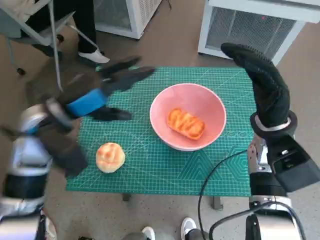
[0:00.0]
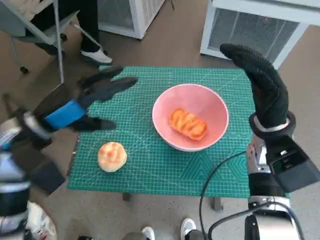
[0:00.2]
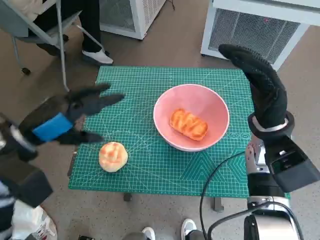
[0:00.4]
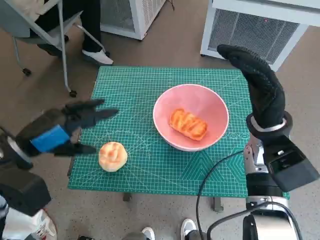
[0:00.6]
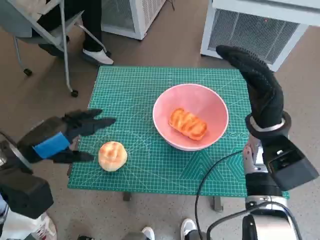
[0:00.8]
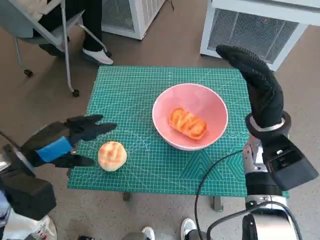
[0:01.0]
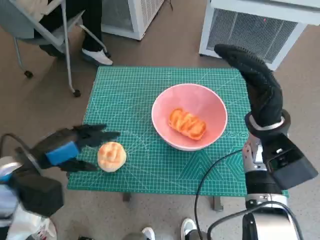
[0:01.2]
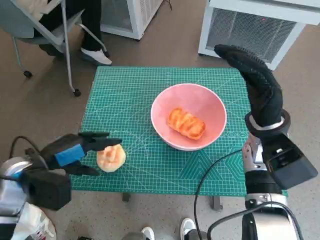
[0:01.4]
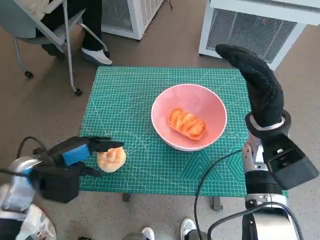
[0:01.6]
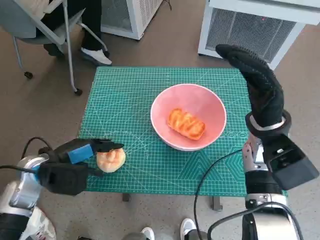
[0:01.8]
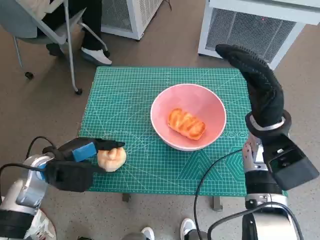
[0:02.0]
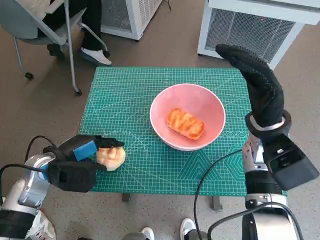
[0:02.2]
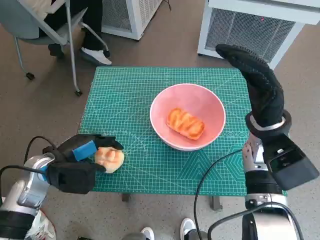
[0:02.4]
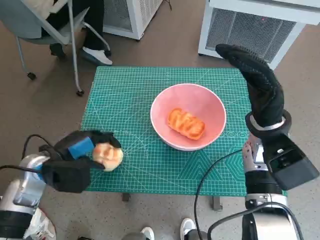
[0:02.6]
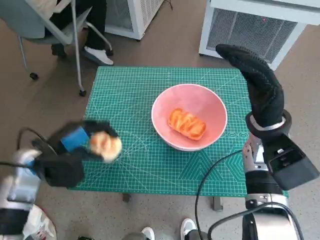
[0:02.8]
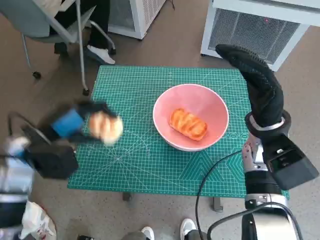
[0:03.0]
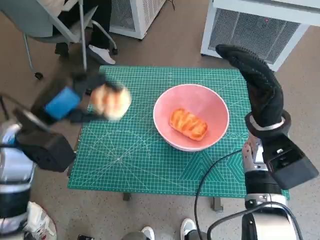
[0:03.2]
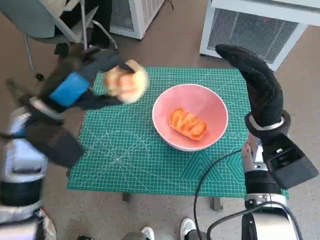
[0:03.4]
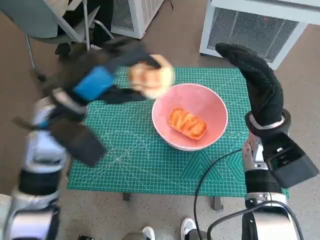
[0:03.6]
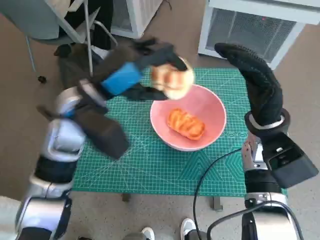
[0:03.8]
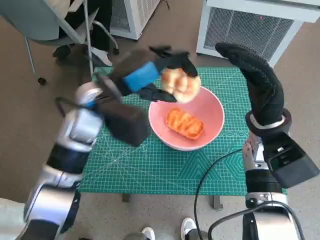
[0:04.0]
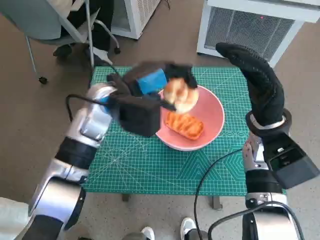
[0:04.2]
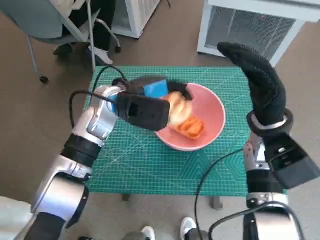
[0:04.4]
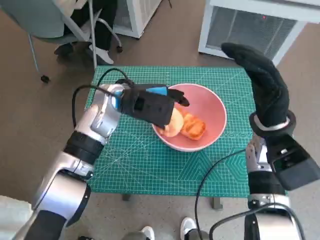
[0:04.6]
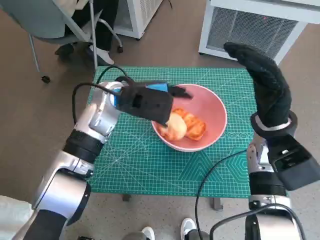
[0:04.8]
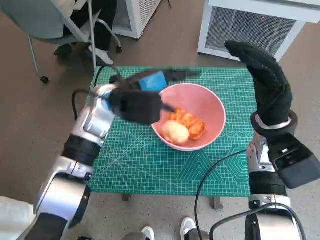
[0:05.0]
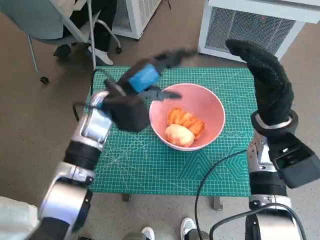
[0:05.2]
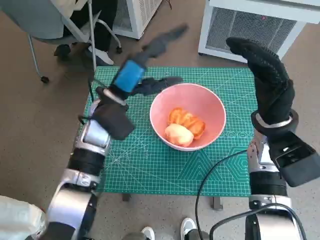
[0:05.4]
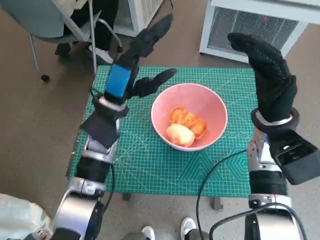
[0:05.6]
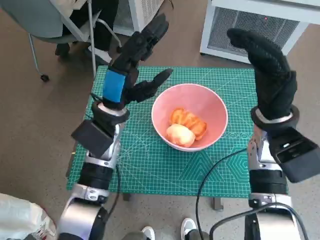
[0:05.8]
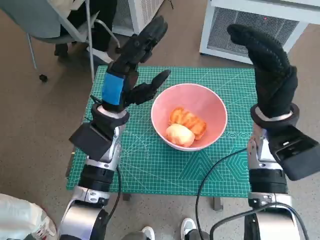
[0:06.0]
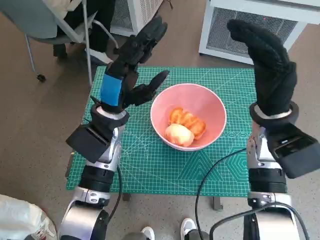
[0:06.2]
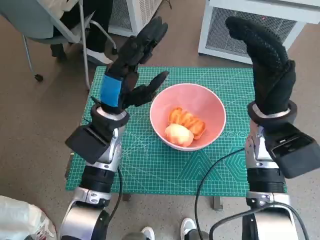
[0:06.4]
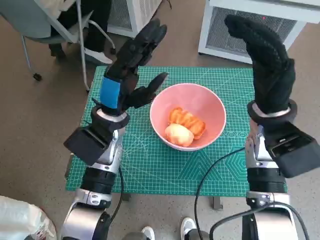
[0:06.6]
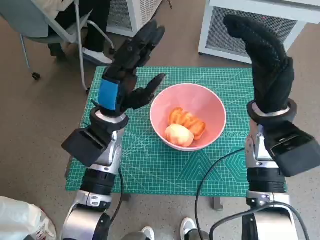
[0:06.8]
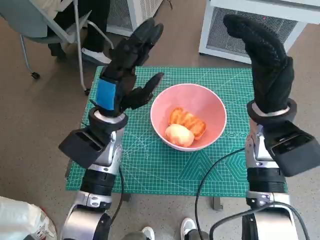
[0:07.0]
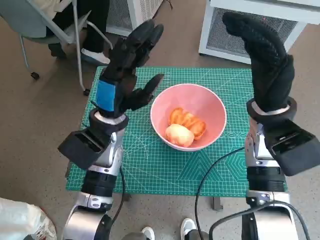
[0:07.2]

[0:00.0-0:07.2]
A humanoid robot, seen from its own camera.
Task of the whole recording: Push the bowl to the center of the table and put the bread into the bowl.
Step, 0:00.0 to 0:02.2: Grasp the round bread with left hand.
Step, 0:02.4 to 0:04.8: Place the round bread in pink bowl with left hand.
0:00.0 to 0:01.4: The left hand shifts roughly 10 cm downward, to the left and backward.
0:01.4 to 0:02.8: There are only small adjustments of the hands.
0:02.8 to 0:04.4: The left hand shifts roughly 20 cm to the right, forward and upward.

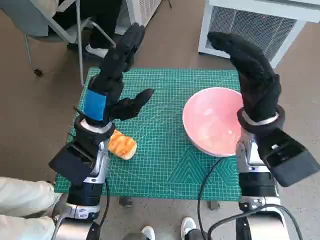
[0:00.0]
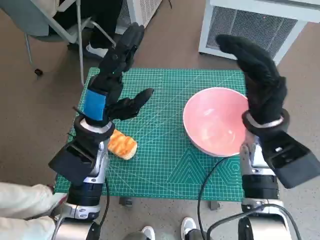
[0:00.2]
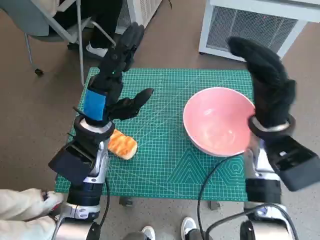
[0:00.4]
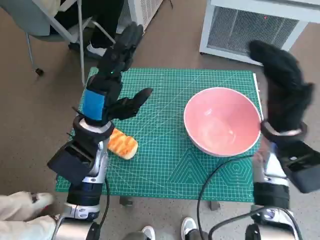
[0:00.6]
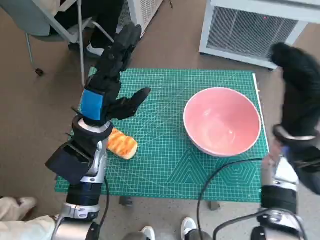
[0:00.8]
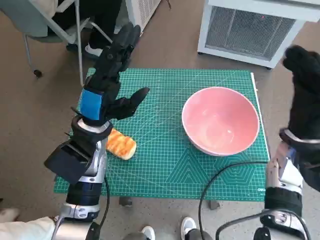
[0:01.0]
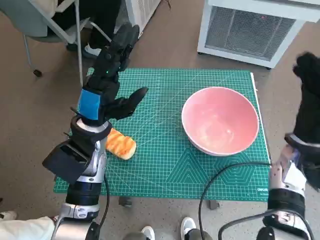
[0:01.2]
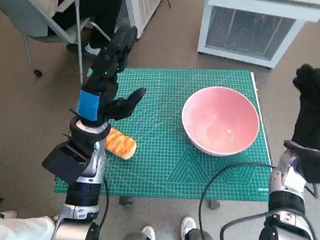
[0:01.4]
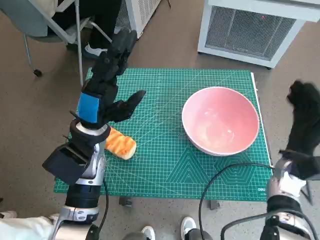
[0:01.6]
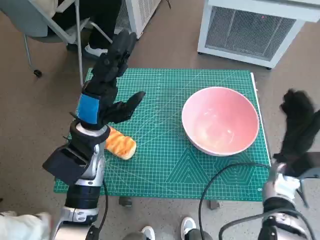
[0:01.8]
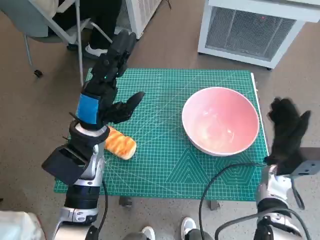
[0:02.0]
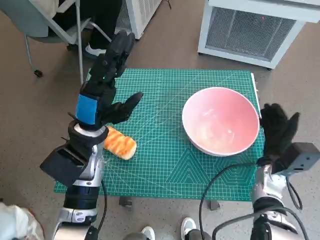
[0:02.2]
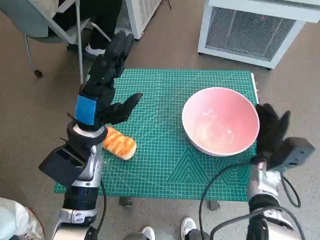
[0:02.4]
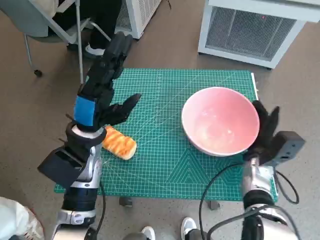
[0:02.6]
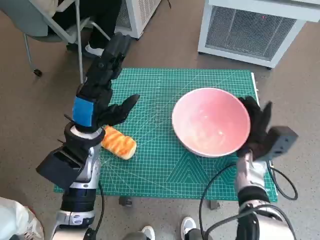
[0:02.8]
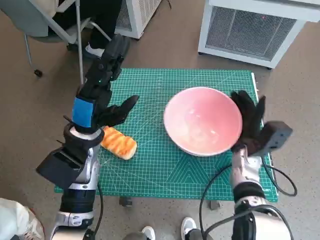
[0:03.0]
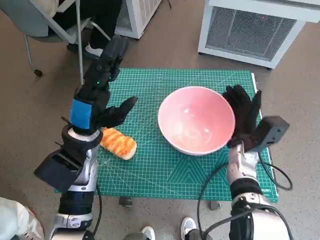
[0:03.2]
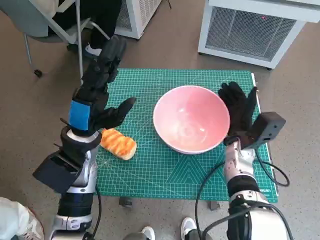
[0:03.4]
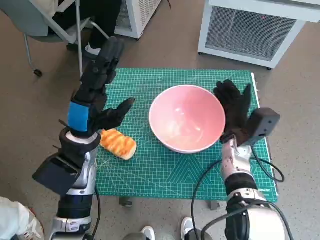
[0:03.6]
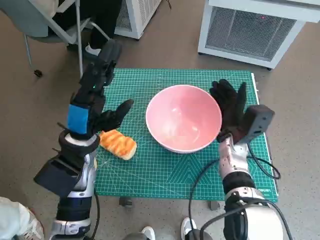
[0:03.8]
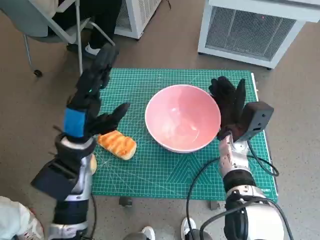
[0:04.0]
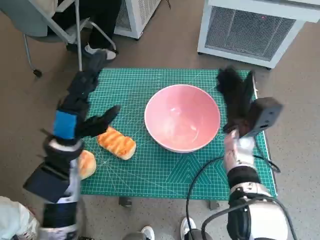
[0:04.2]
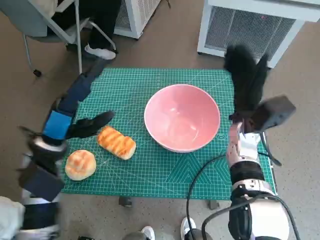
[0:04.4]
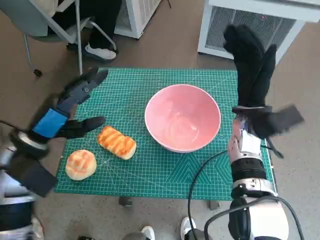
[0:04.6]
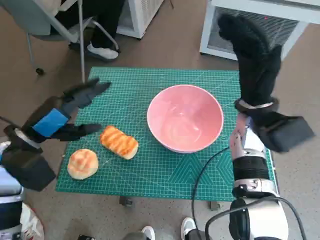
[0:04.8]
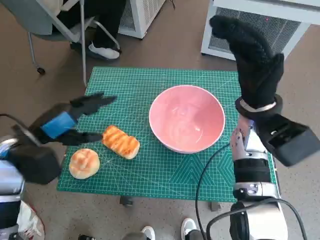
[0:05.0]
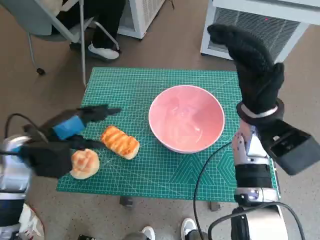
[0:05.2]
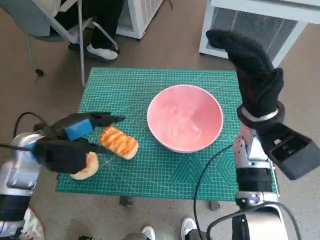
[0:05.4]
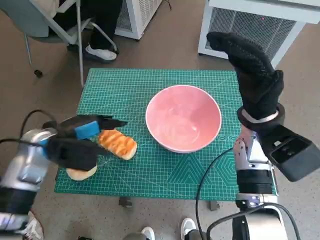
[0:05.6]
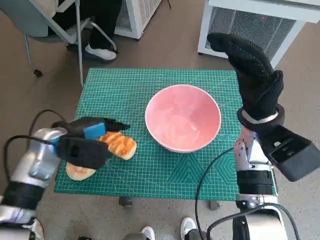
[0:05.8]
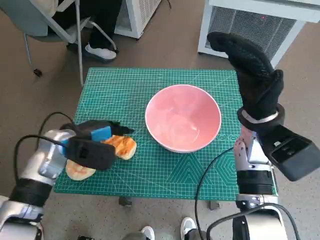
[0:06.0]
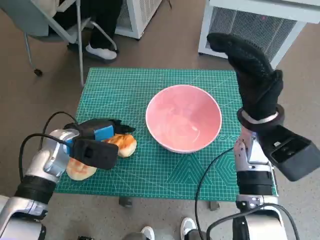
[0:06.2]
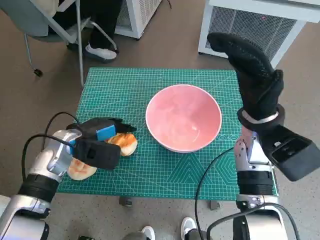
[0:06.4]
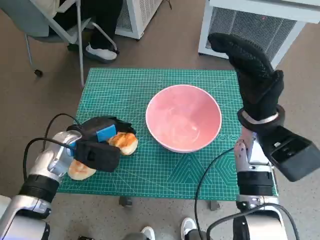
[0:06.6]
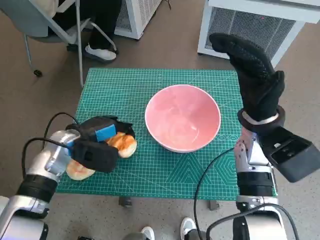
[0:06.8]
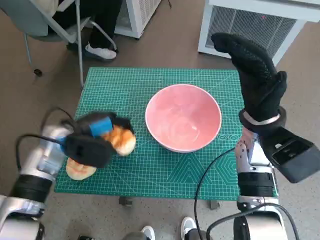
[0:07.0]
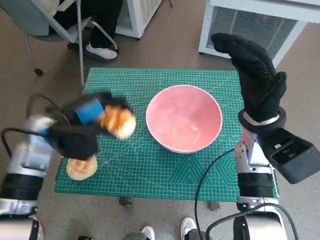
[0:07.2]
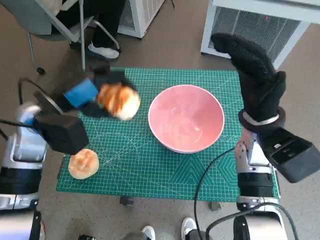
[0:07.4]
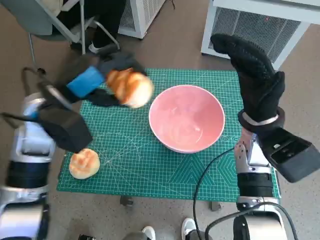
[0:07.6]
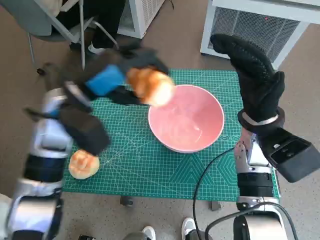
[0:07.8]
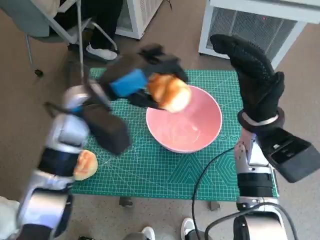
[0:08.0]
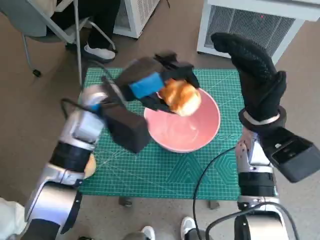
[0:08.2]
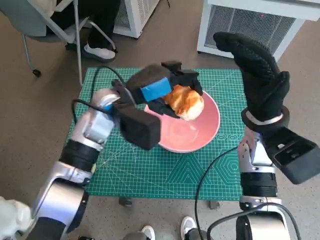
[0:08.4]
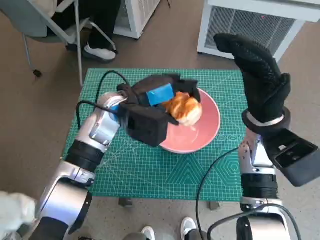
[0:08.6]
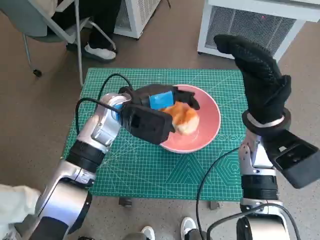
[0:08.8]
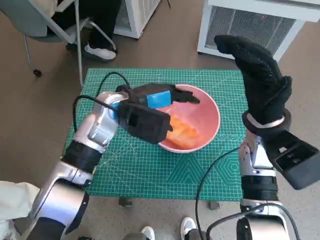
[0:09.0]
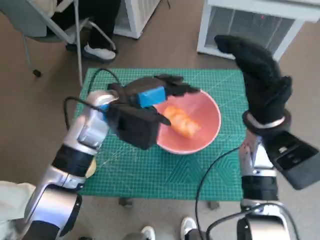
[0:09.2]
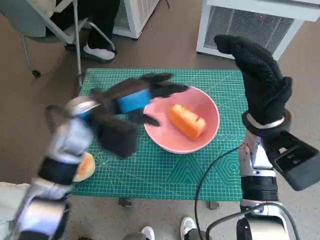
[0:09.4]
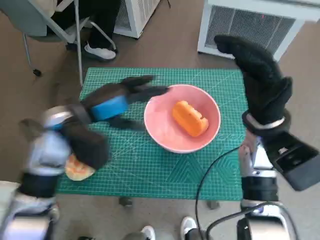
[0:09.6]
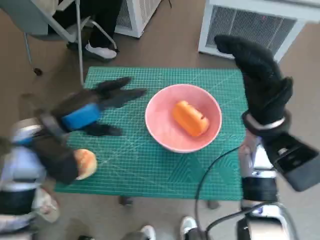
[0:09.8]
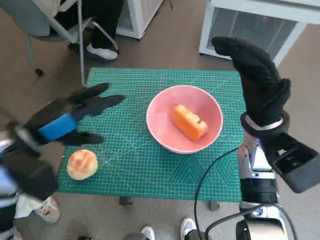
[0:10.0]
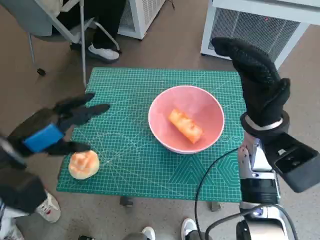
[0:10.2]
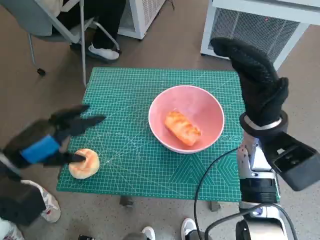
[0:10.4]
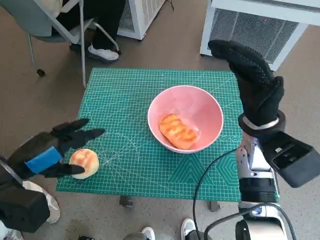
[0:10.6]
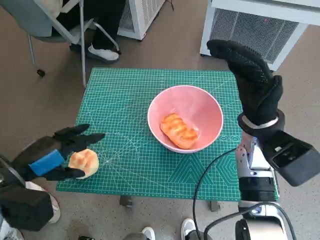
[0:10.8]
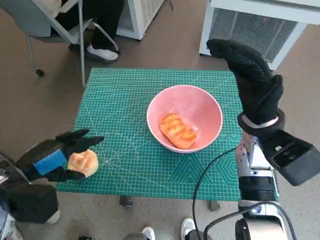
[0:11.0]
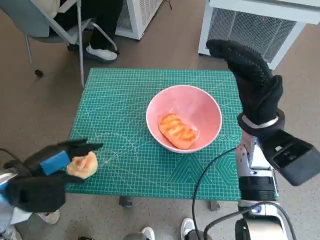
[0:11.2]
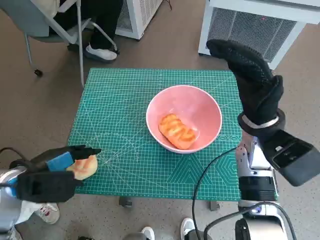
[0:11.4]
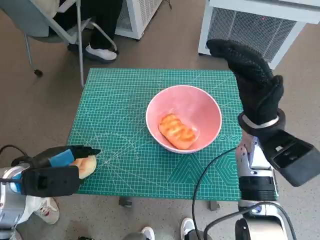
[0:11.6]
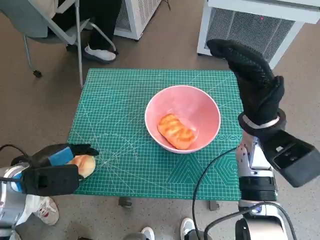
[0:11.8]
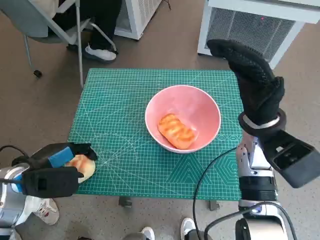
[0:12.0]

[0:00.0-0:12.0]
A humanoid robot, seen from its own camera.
Task of the whole recording: Push the bowl to the center of the table and put the bread into the bowl.
Step, 0:00.0 to 0:04.2: Move the pink bowl to the center of table with right hand.
Step, 0:04.4 to 0:06.6: Grasp the long bread with left hand.
Step, 0:06.8 to 0:09.0: Place the long bread in pink bowl with left hand.
0:01.6 to 0:03.0: The right hand heads to the left, covering some 10 cm.
0:03.0 to 0:04.4: The right hand heads upward, covering some 5 cm. Meanwhile the left hand goes some 5 cm to the left.
0:04.4 to 0:06.0: The left hand shifts by roughly 5 cm, while the right hand heads upward, covering roughly 5 cm.
0:06.0 to 0:07.6: The left hand travels upward by about 10 cm.
0:07.6 to 0:09.0: The left hand goes about 10 cm to the right.
0:09.0 to 0:10.4: The left hand goes about 20 cm to the left and backward.
0:10.4 to 0:12.0: The left hand is displaced downward by some 5 cm.

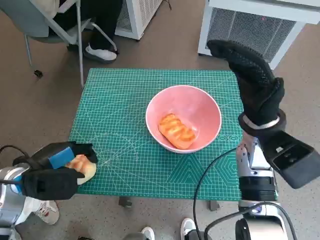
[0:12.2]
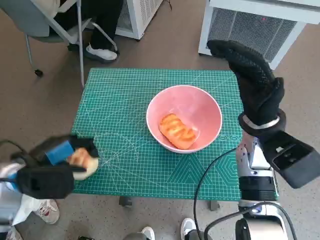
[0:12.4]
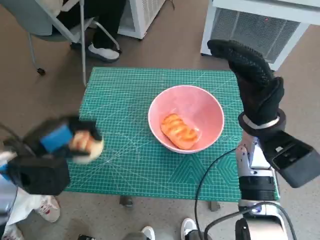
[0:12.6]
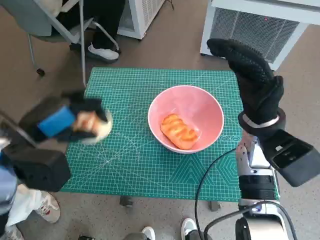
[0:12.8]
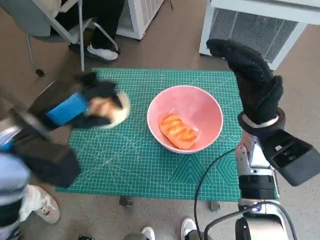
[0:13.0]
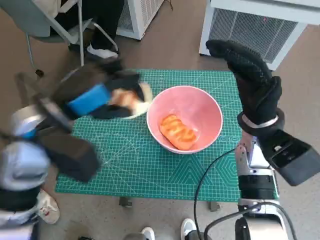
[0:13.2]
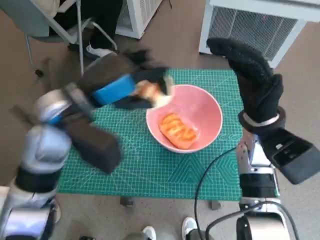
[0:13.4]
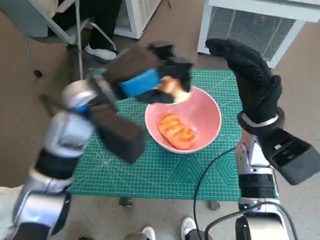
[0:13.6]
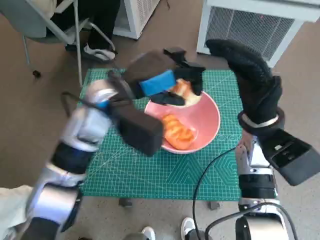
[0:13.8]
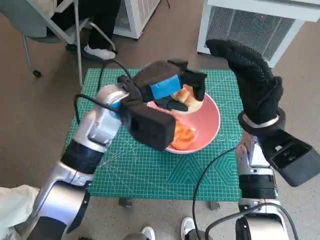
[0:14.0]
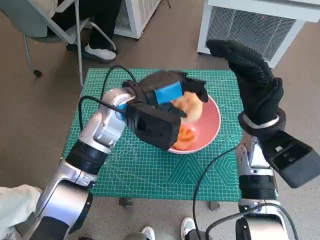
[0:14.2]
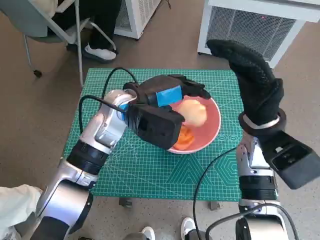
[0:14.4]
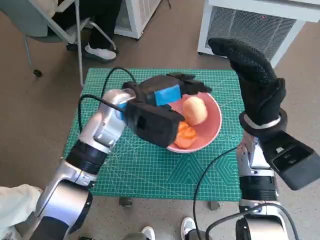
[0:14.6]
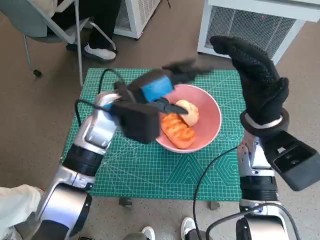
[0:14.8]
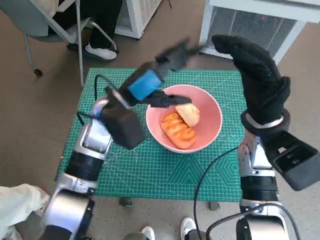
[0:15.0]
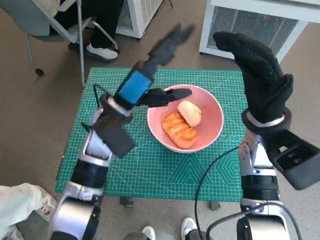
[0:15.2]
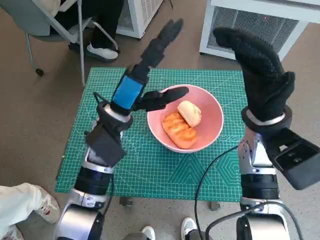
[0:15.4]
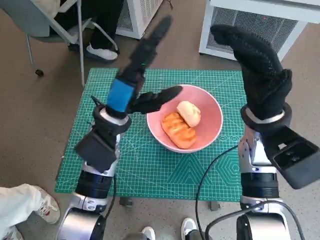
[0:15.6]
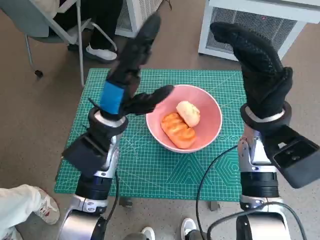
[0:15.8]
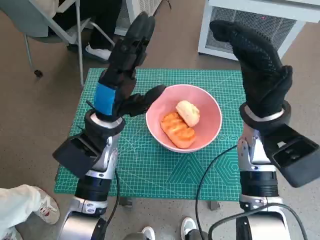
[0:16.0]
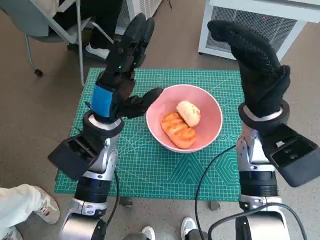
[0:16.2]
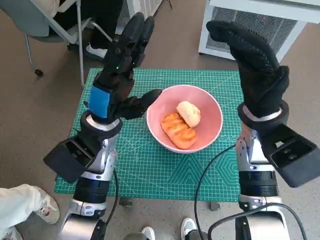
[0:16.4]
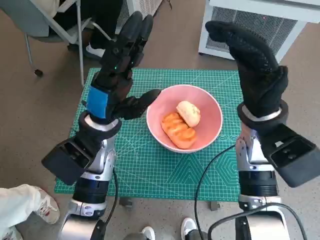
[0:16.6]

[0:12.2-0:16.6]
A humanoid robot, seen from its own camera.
Task of the whole recording: Push the bowl to the center of the table and put the bread into the bowl.
Step, 0:12.2 to 0:14.8: Place the round bread in pink bowl with left hand.
0:12.2 to 0:13.6: The left hand travels to the right, upward and forward by roughly 20 cm.
0:13.6 to 0:15.2: The left hand moves downward, about 5 cm.
